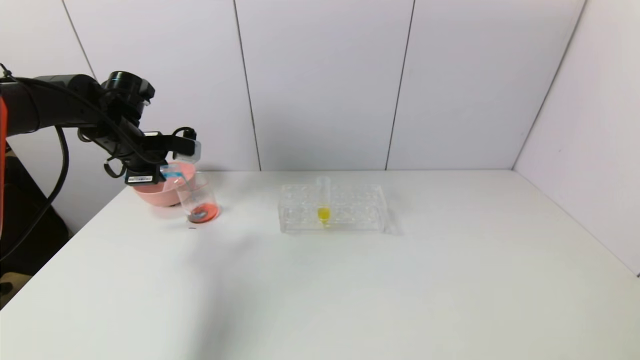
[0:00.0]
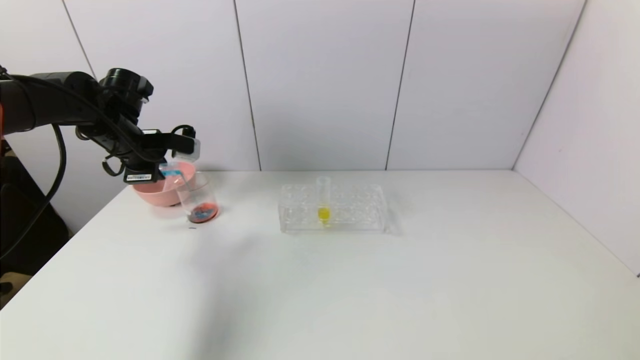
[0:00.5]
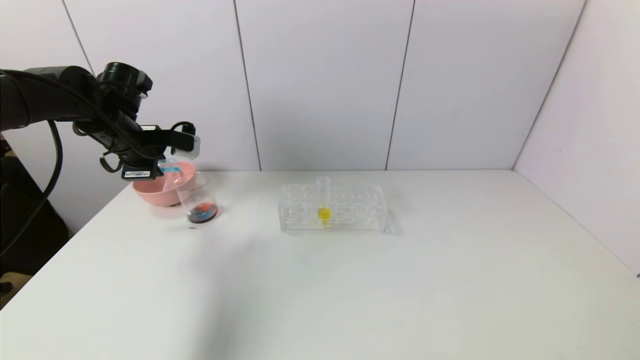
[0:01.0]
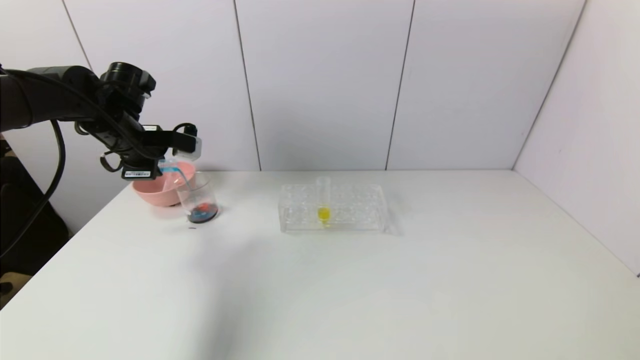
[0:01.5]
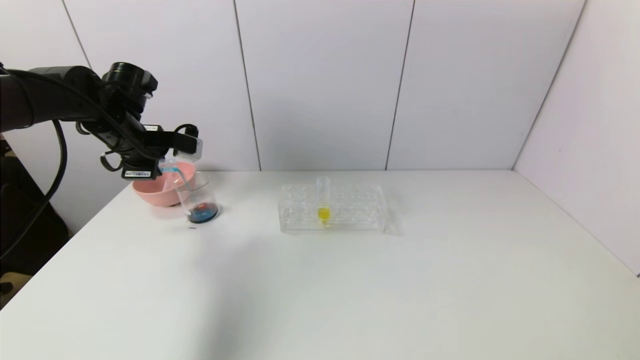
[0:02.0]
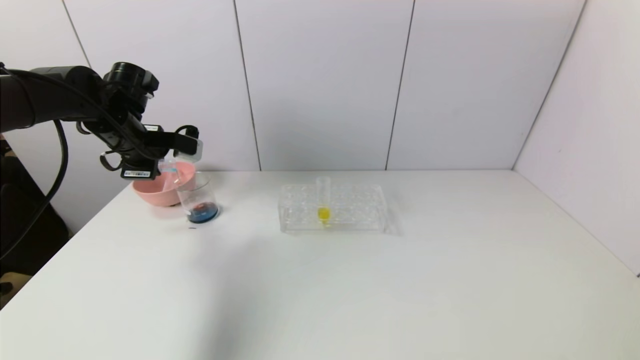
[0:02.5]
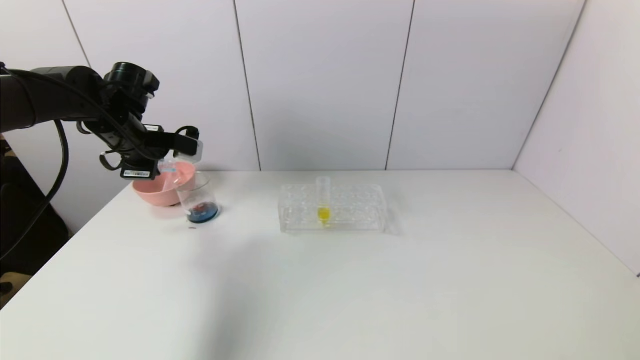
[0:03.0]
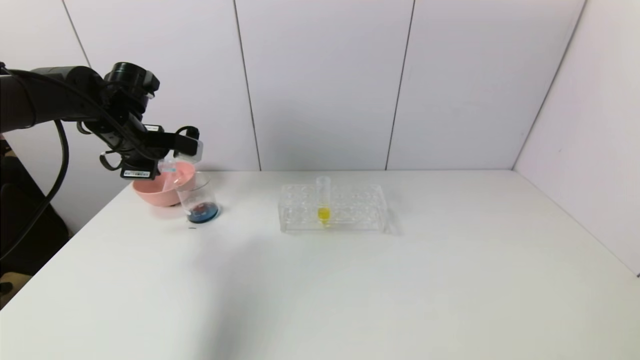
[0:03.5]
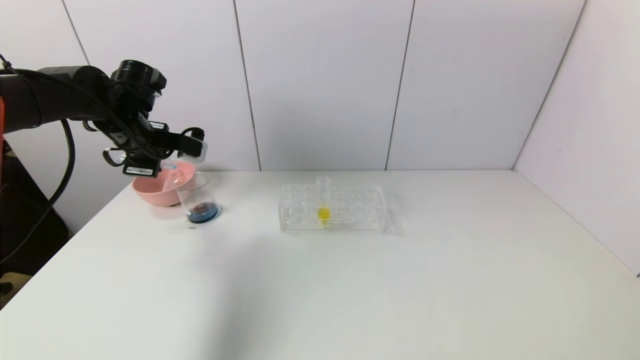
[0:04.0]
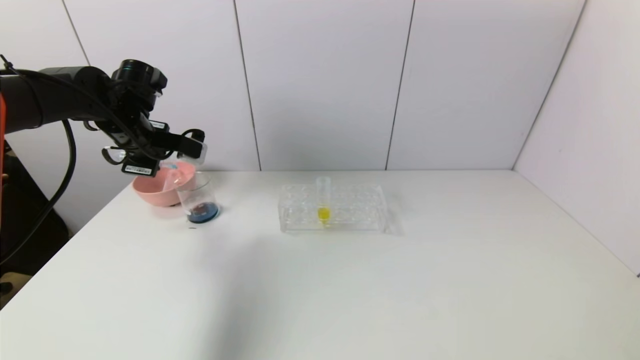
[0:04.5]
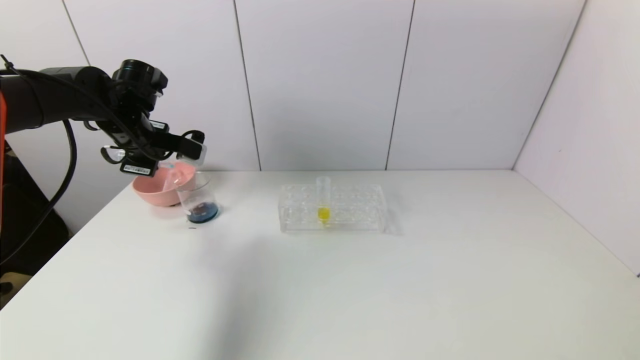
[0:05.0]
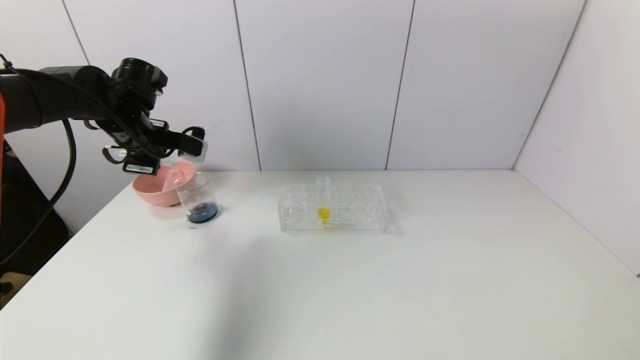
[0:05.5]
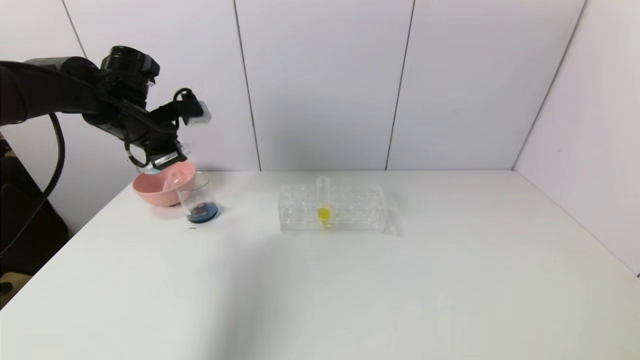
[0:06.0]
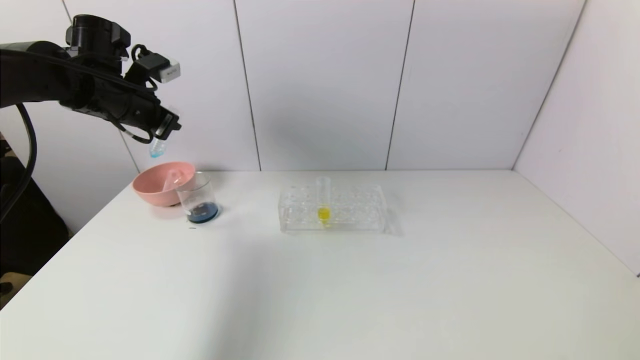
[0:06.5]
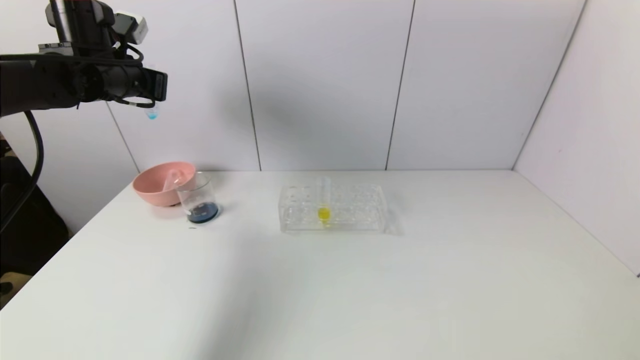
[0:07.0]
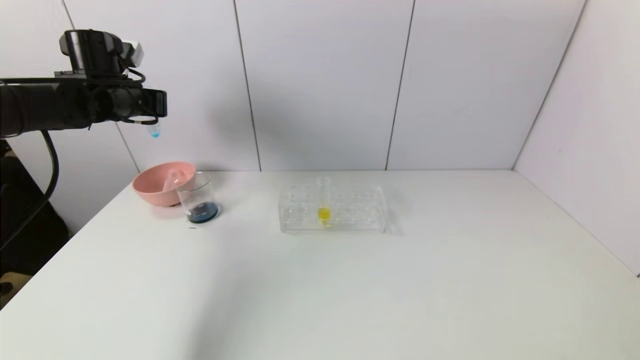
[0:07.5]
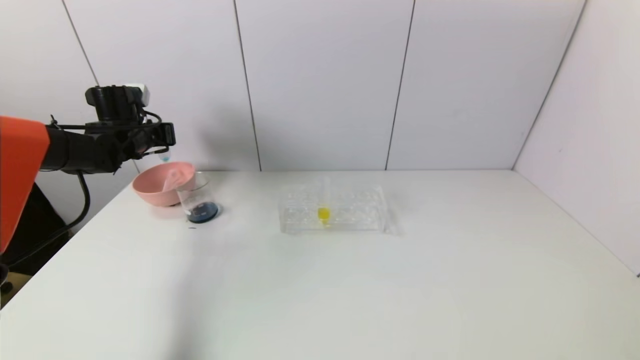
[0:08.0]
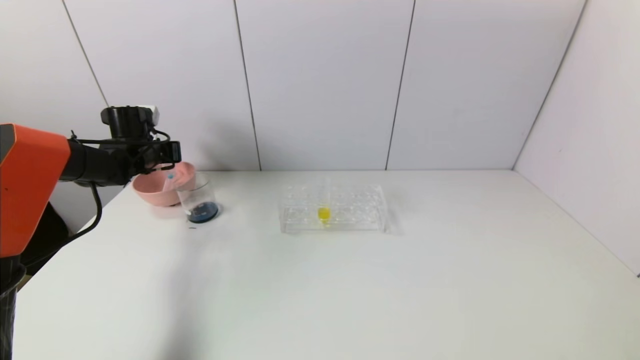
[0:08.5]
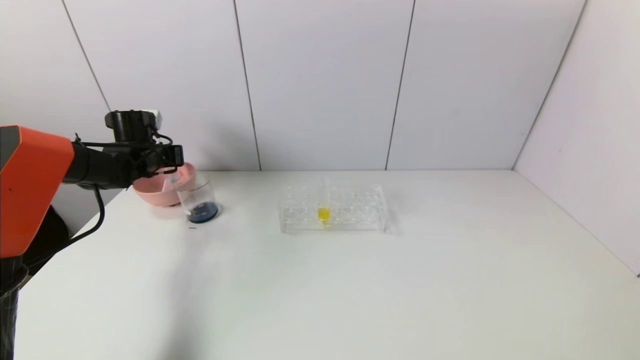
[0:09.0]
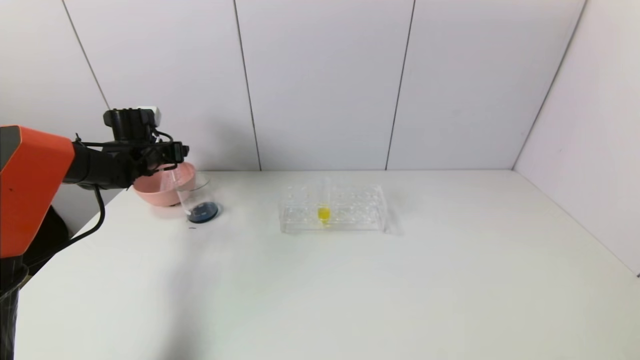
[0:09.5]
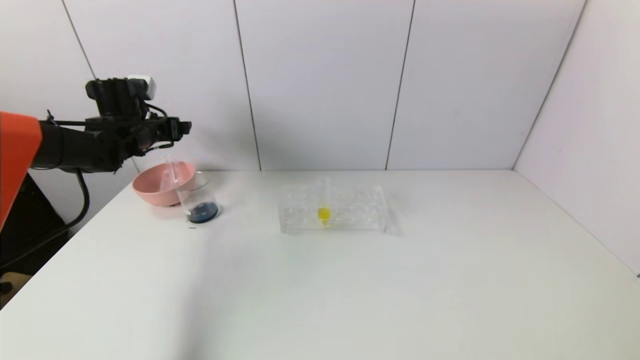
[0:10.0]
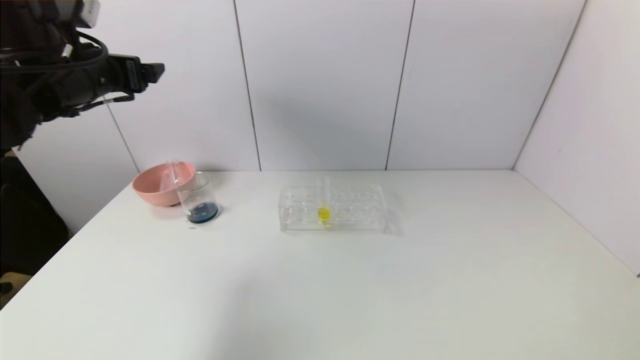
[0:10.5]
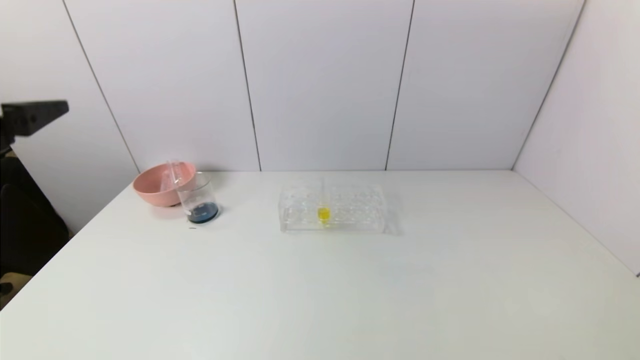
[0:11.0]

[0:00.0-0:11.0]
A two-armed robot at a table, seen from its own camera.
Task of the whole recording: pick up the test tube with red pigment and the test tube with blue pigment by grippers and pour them into the container.
Step, 0:00.0 to 0:05.5: Pour the blue reagent into the graduated cylinder with the left gripper.
Step, 0:06.0 to 0:10.0: Place the test tube into the bowl with the left gripper.
0:00.0 to 0:02.0: The grippers move only a little.
0:02.0 to 0:03.5: The two grippers keep their place.
0:03.5 to 0:05.5: The grippers move only a little.
0:05.5 to 0:07.5: The left gripper moves some 5 cm.
0:07.5 to 0:09.0: The left gripper goes some 15 cm downward.
0:09.0 to 0:11.0: The left gripper travels backward and upward by approximately 40 cm, and opens up.
